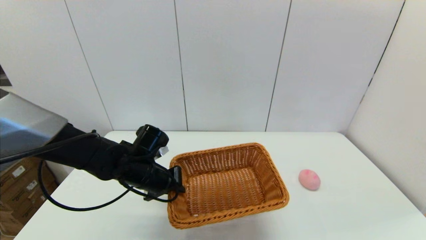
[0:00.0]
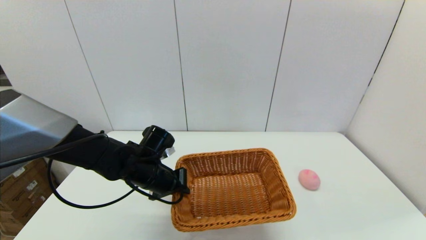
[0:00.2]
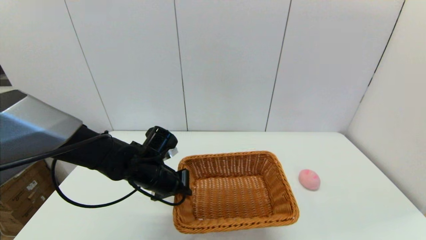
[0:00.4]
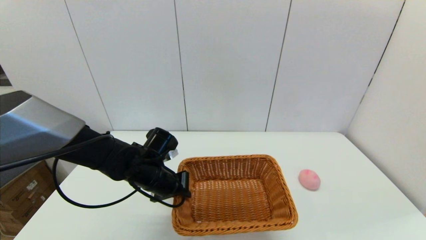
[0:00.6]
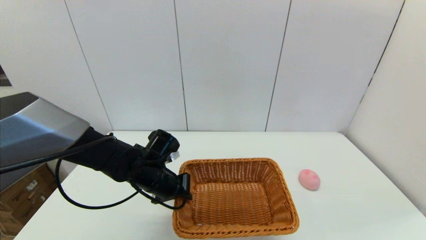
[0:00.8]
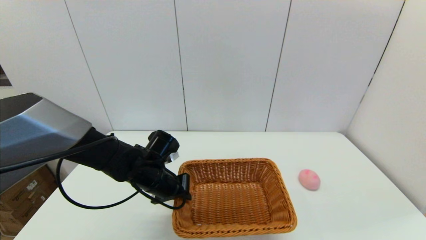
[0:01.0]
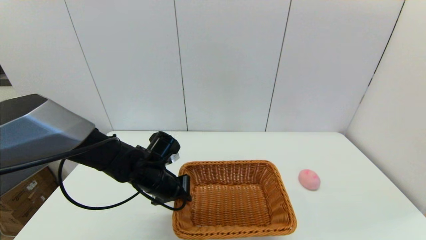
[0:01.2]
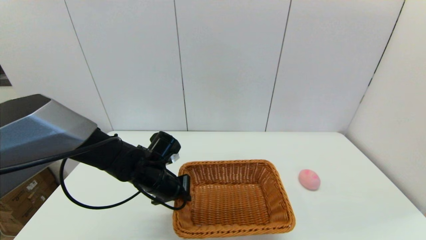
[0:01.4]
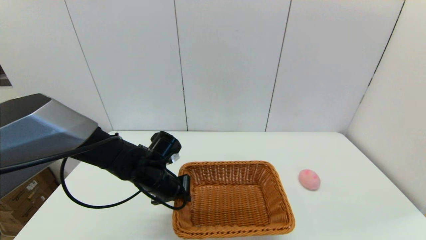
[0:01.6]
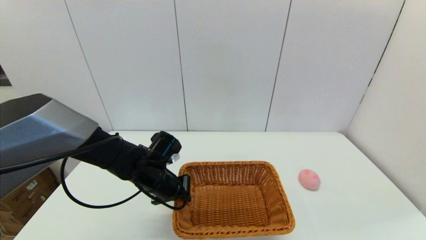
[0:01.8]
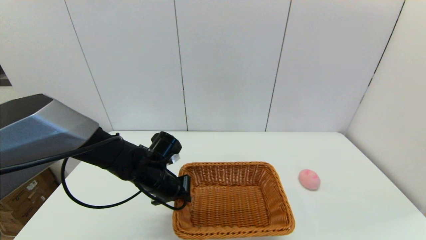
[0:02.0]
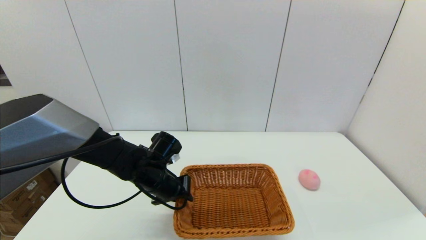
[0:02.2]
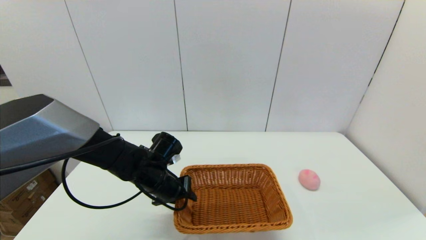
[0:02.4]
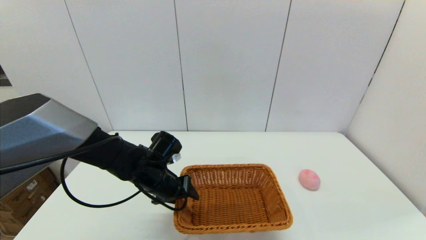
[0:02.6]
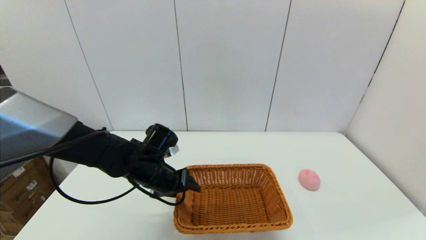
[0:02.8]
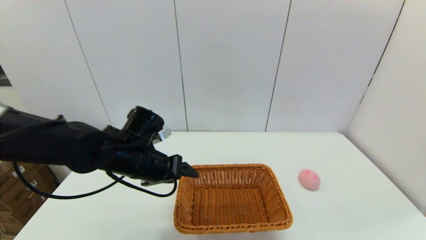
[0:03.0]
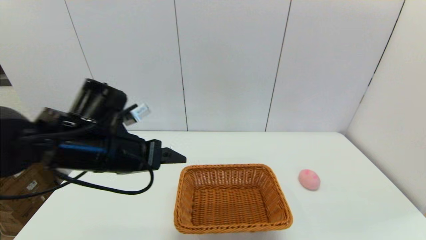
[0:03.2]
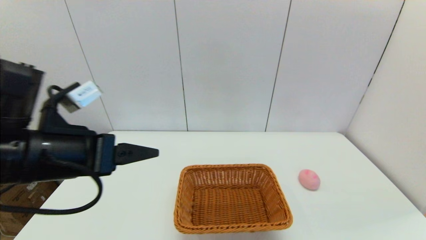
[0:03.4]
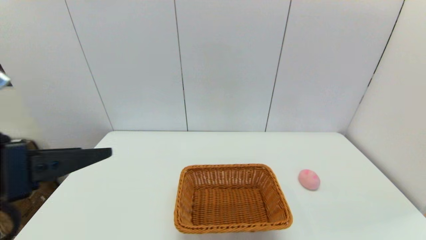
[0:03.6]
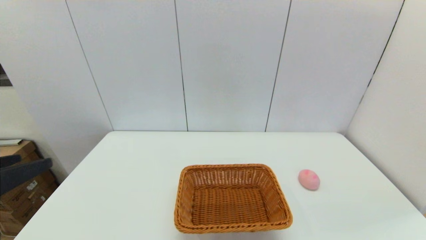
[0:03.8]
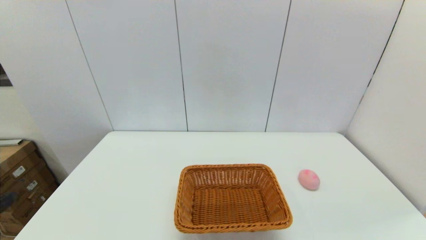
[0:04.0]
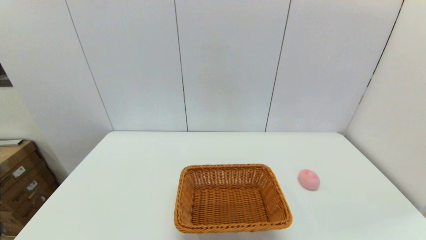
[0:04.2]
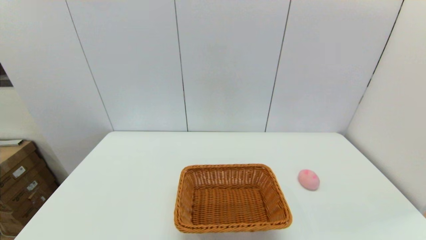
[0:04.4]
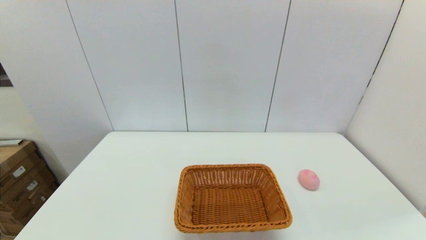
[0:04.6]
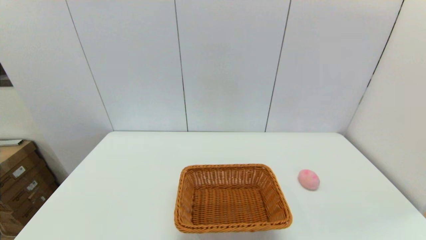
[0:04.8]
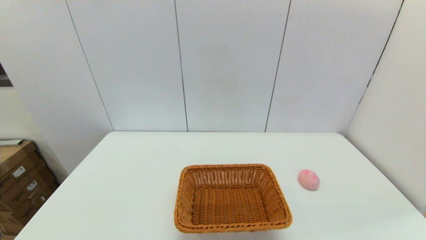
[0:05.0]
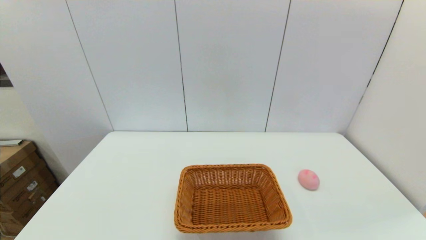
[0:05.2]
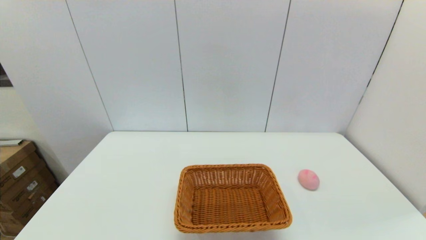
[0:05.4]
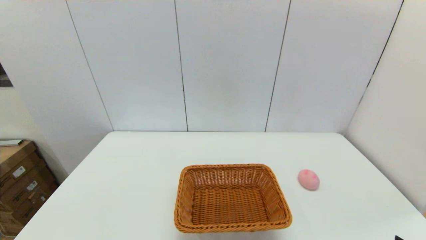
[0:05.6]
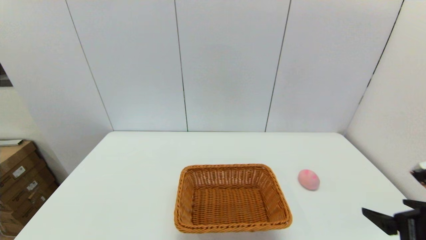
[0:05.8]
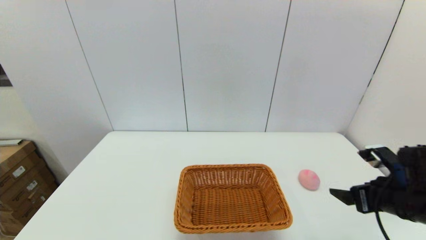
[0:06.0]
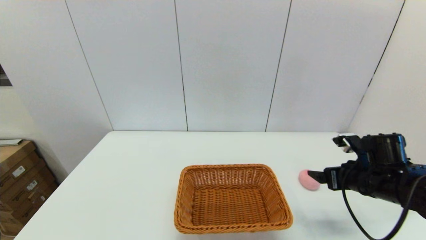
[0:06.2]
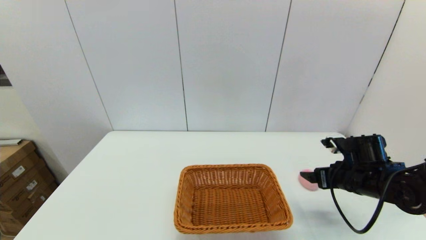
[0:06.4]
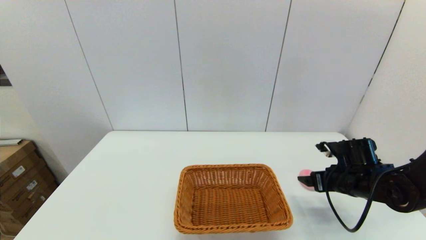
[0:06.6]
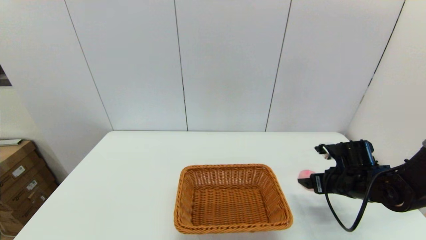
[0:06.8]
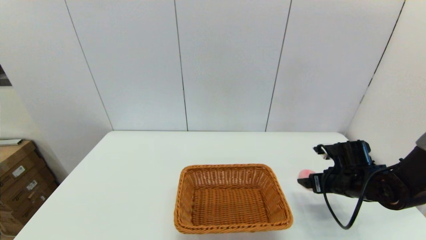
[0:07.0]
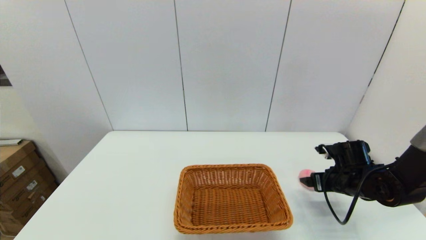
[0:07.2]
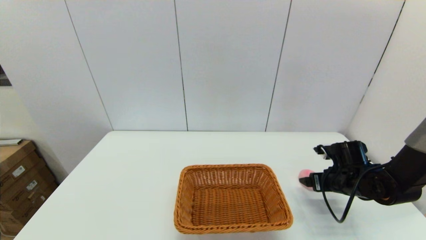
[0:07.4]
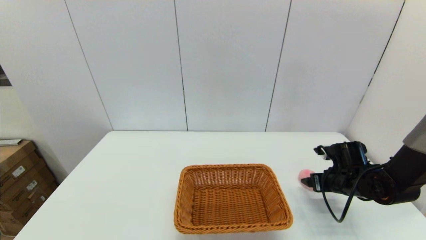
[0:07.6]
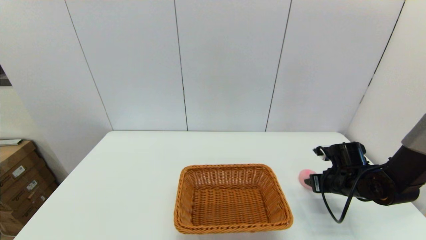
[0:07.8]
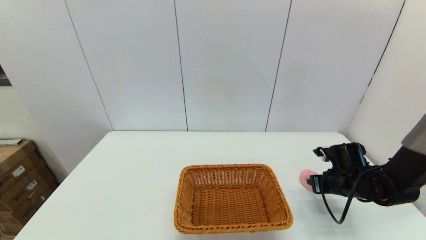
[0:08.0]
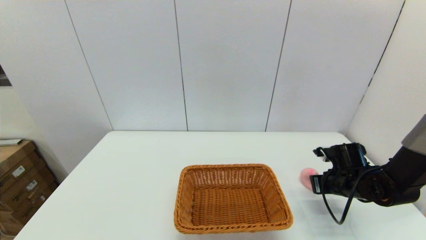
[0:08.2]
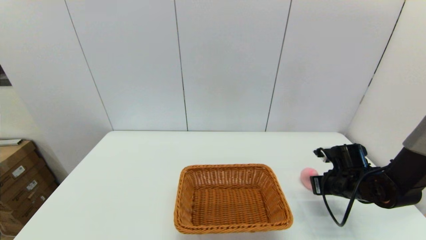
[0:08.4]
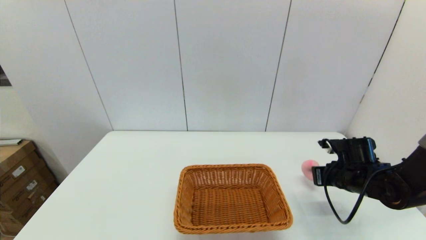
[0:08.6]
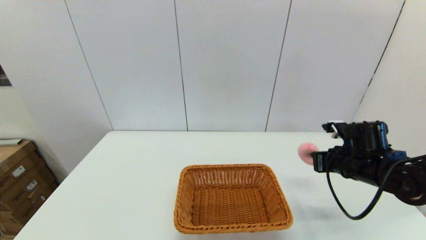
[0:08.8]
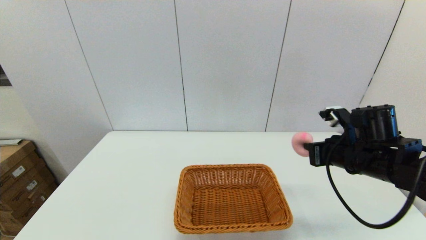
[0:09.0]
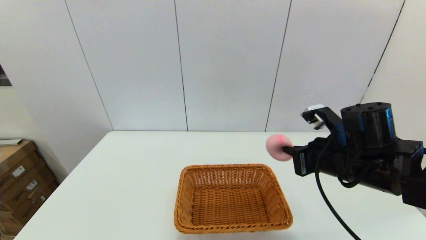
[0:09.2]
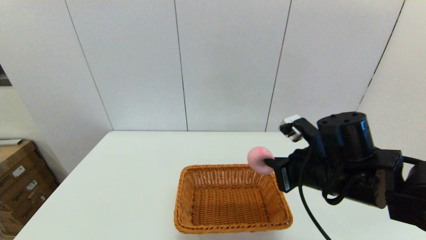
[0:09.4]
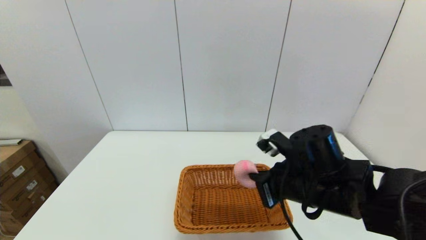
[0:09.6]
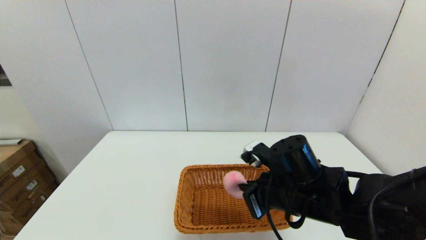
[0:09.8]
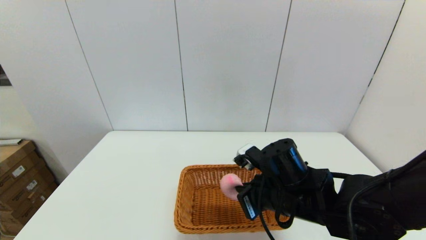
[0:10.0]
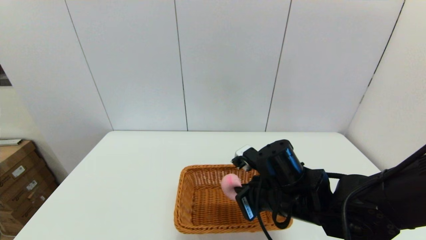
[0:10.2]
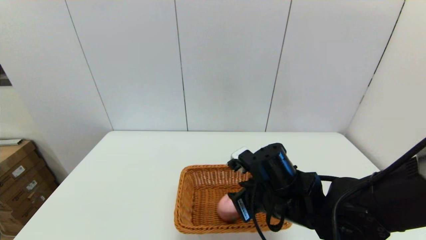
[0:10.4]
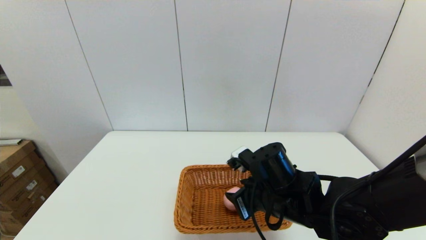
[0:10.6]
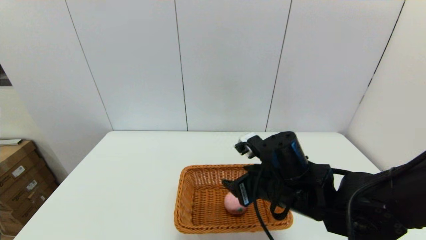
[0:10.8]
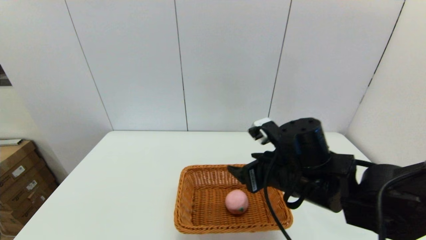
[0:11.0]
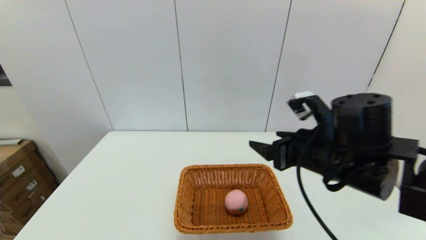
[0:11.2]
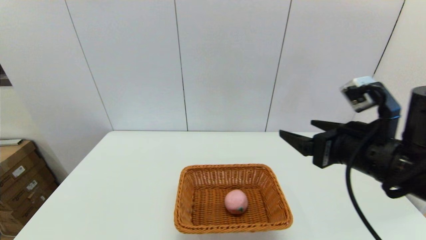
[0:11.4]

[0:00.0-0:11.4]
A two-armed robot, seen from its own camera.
Step, 0:00.0 to 0:02.2: Place the light basket on the middle of the table with the left gripper.
Step, 0:02.6 to 0:08.2: Grasp the peach with the right gripper.
Step, 0:08.4 to 0:10.8: Place the peach into the light basket with the right gripper.
0:00.0 to 0:01.4: There are only small adjustments of the grippers.
0:01.4 to 0:02.8: The left gripper opens.
0:02.8 to 0:04.2: The left gripper is displaced backward, to the left and upward by some 35 cm.
0:05.6 to 0:07.2: The right gripper moves forward, some 25 cm.
0:07.2 to 0:08.6: The right gripper closes up.
0:08.6 to 0:10.0: The right gripper moves to the left, some 20 cm.
0:10.0 to 0:11.4: The right gripper heads upward and to the right, covering approximately 15 cm, and opens its fingers.

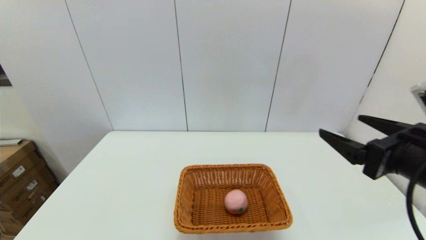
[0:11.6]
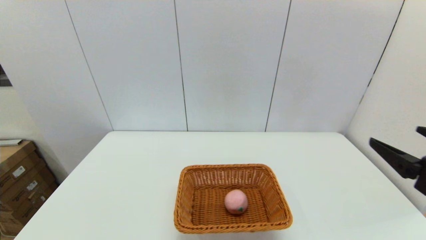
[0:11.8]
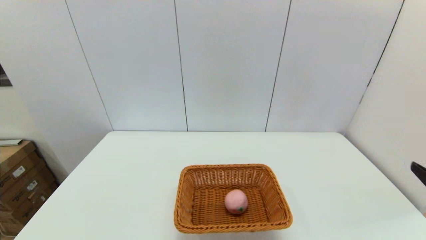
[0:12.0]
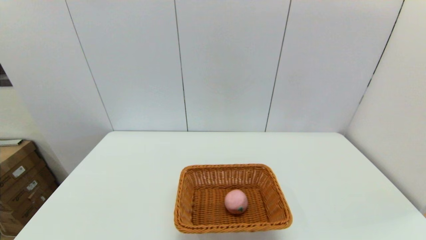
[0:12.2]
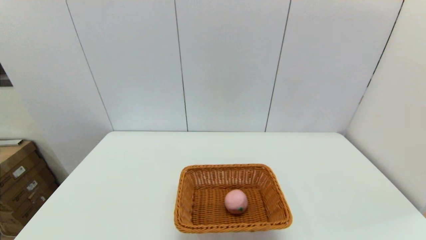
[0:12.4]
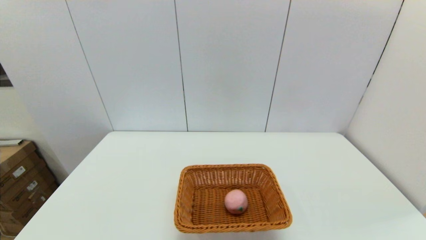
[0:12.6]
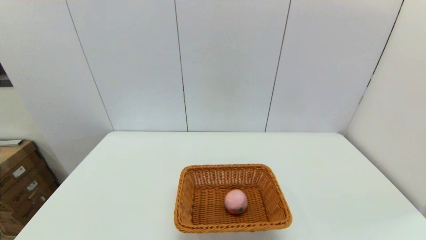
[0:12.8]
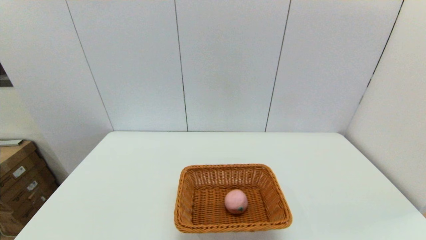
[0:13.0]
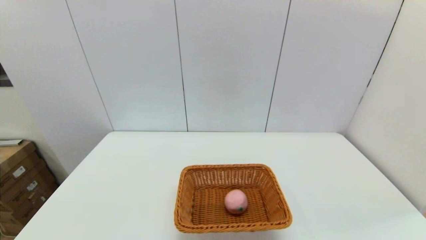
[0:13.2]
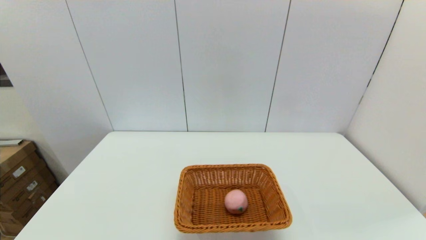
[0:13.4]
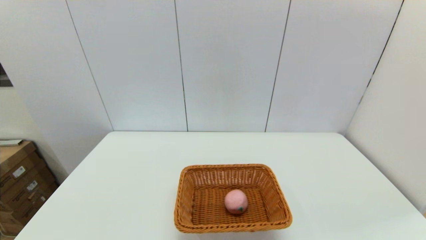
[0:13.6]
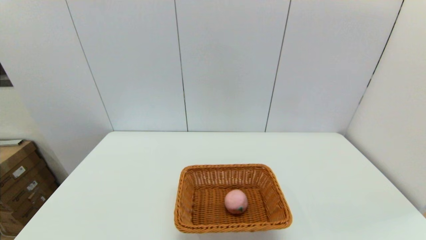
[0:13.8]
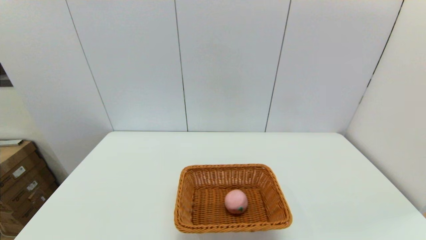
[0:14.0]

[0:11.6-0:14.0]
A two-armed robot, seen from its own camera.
0:11.6 to 0:12.8: The right gripper shifts some 20 cm backward, downward and to the right.
